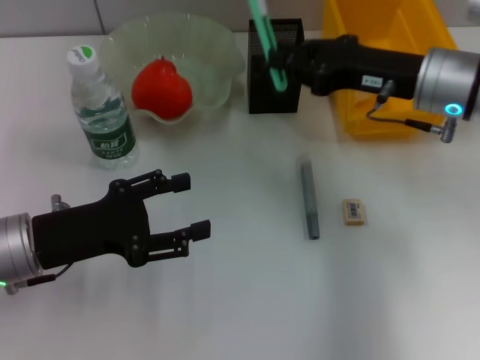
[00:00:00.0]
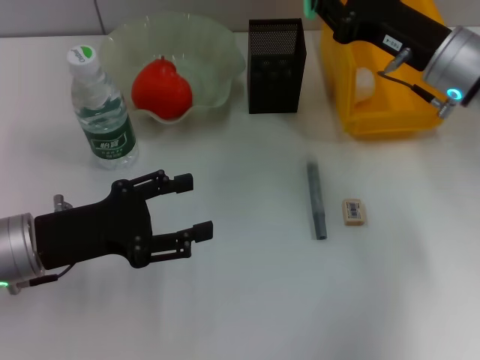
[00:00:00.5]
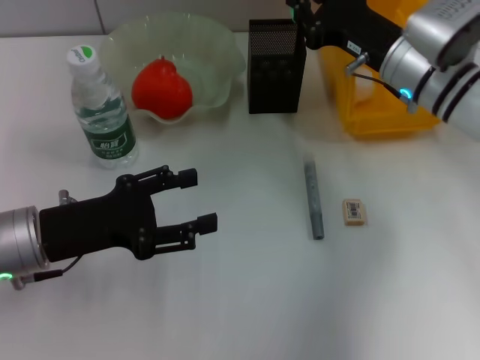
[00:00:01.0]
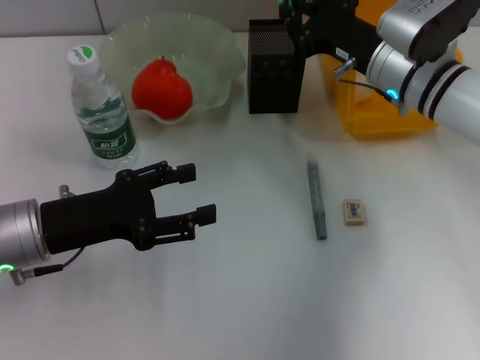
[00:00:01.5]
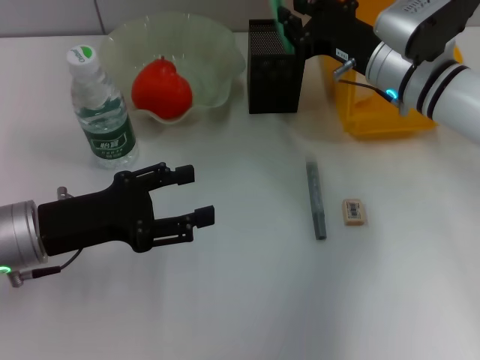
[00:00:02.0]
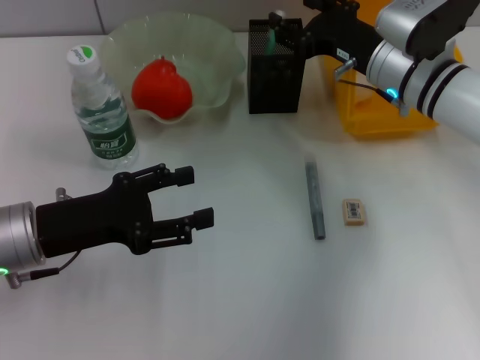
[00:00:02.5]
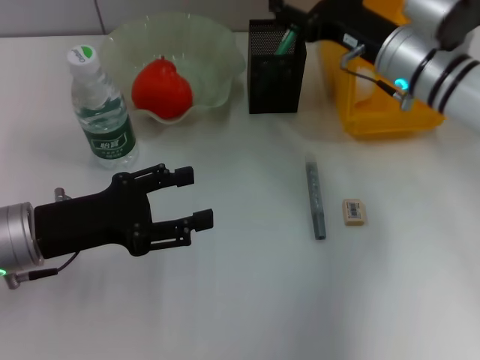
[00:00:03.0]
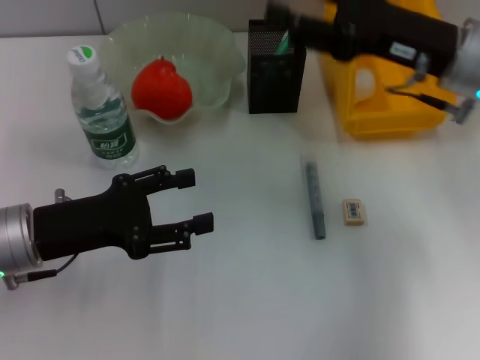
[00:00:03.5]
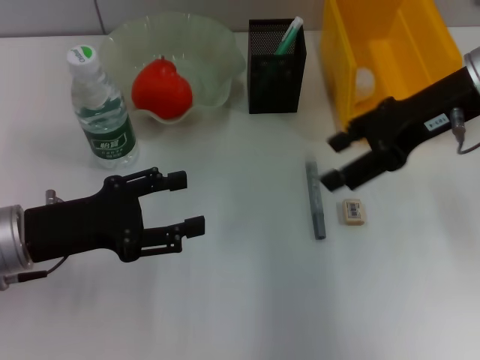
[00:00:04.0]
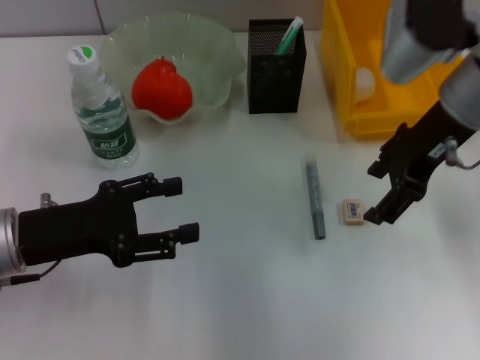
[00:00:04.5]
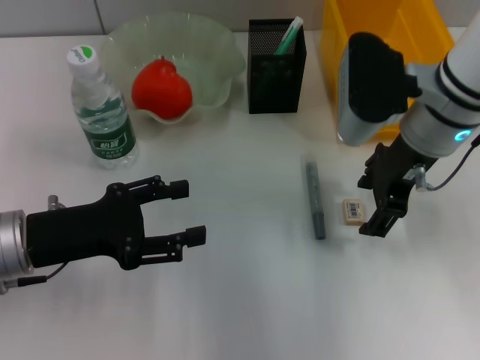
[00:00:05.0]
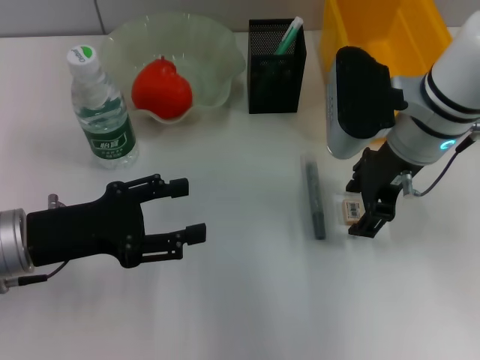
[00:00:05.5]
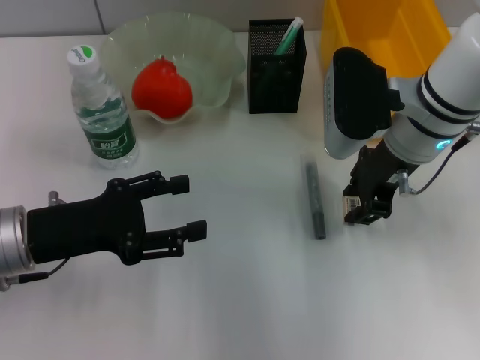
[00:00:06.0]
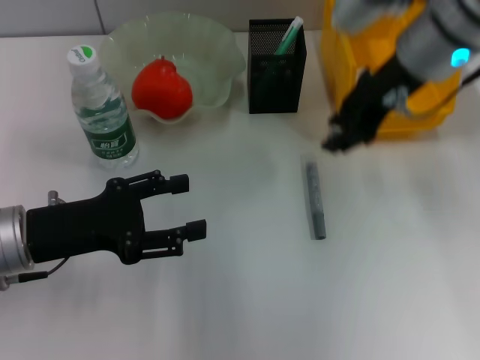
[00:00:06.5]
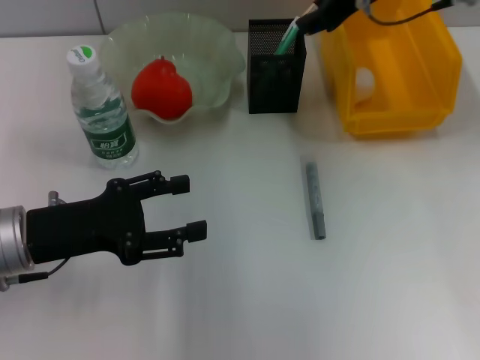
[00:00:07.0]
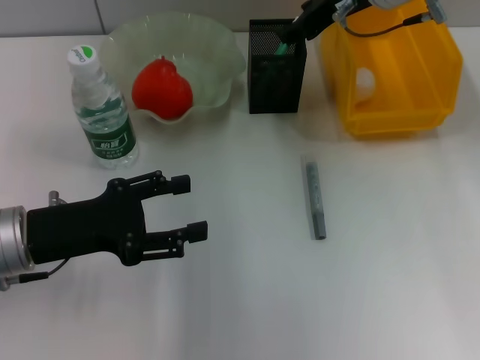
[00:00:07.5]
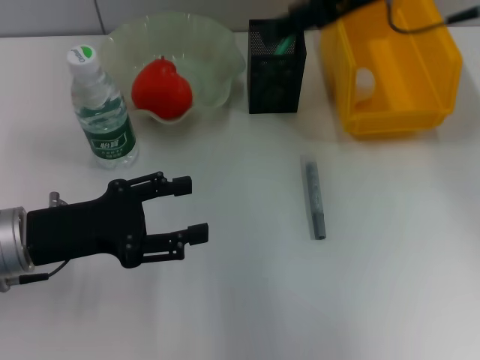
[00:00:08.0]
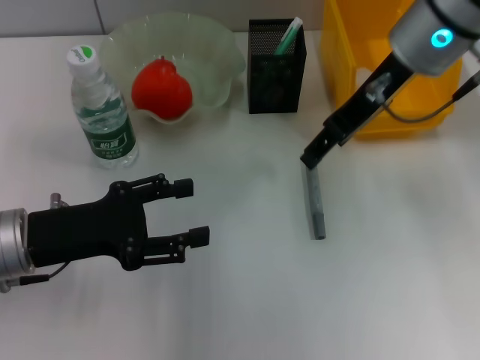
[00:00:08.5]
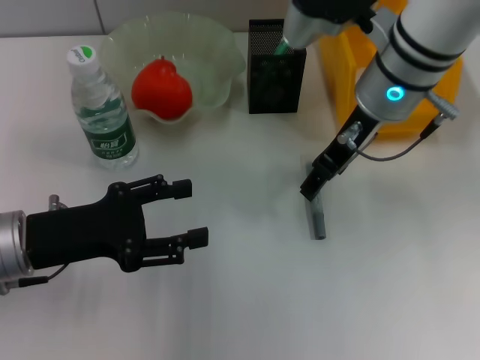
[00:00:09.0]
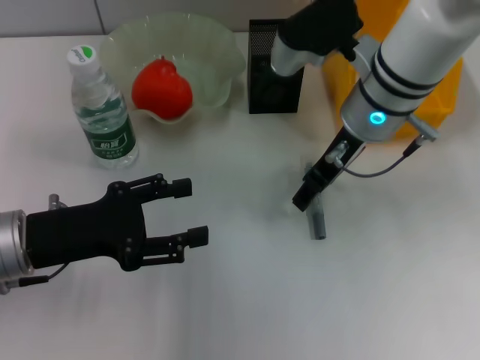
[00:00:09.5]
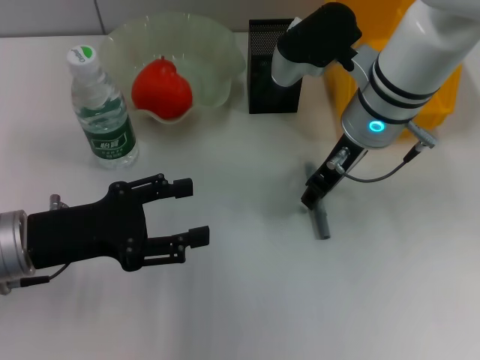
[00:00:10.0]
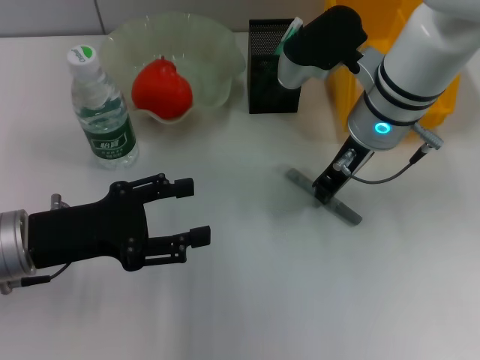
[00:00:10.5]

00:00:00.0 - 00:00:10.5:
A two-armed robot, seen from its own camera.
Step, 00:00:00.0 - 00:00:02.5: Place the blue utility knife into the pen holder with the right hand.
Step, 00:00:03.0 - 00:00:06.0: Grab the eraser with the right hand.
Step, 00:00:06.5 - 00:00:07.5: Put the eraser into the pen holder with the right hand.
00:00:00.0 - 00:00:02.0: The right gripper ends up about 5 cm from where it was.
00:00:02.0 - 00:00:04.0: The right gripper goes about 10 cm upward, and opens its fingers.
00:00:04.0 - 00:00:06.5: The right gripper moves to the left, approximately 5 cm, reaches about 5 cm downward, then returns, and closes.
00:00:06.5 - 00:00:08.5: The right gripper opens up.
00:00:08.5 - 00:00:10.5: The right gripper heads downward, covering roughly 10 cm, and closes up.

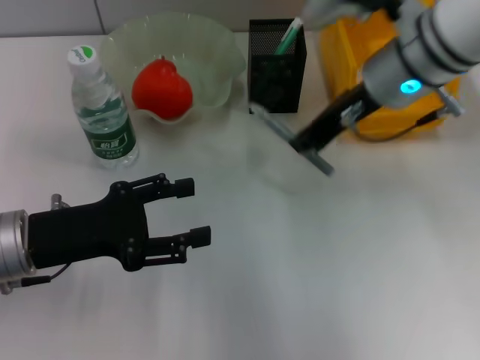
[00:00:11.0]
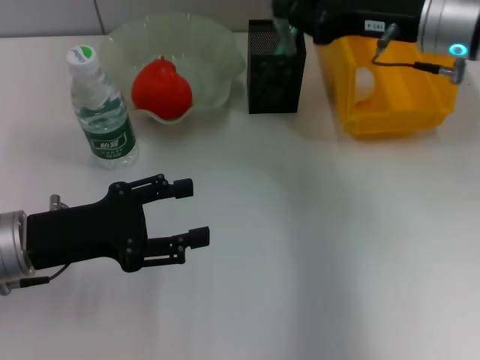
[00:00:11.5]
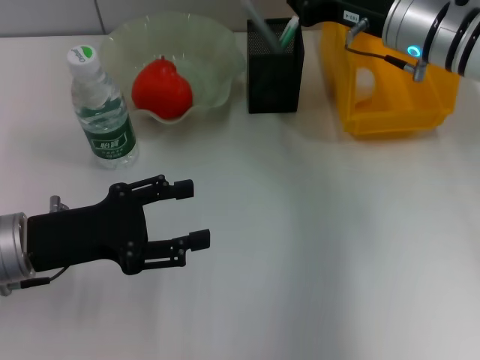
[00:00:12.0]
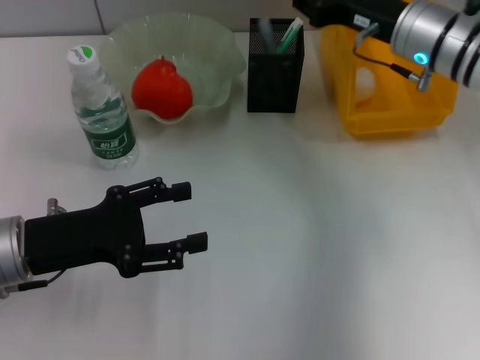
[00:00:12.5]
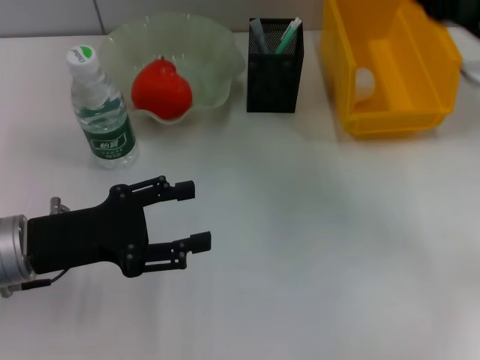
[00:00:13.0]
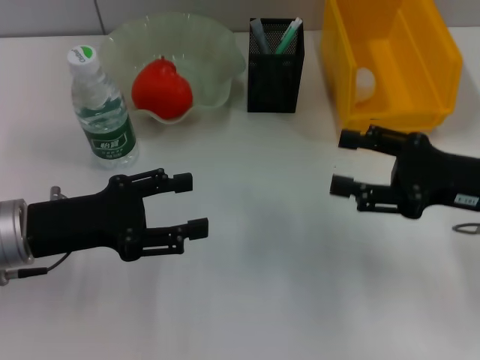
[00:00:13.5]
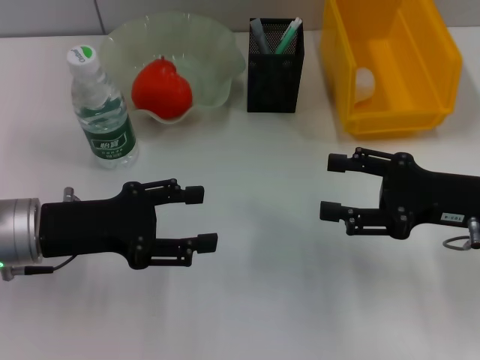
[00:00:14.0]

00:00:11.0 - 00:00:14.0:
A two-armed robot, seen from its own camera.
Step, 00:00:11.0 - 00:00:12.0: Place the gray glue into the pen holder with the right hand.
00:00:11.0 - 00:00:12.5: The right gripper travels downward and to the right by some 5 cm.
00:00:12.5 - 00:00:14.0: The right gripper goes some 15 cm backward and to the right, and opens up.

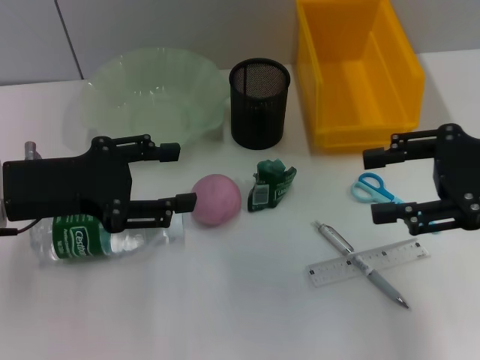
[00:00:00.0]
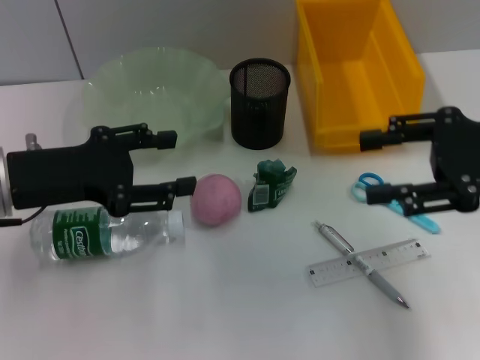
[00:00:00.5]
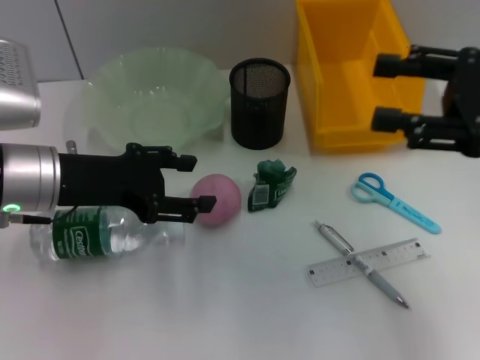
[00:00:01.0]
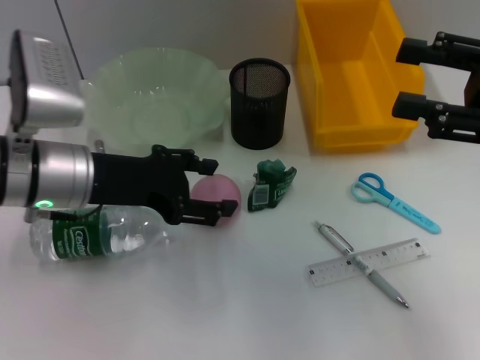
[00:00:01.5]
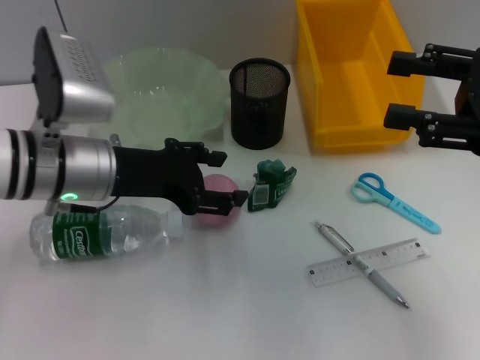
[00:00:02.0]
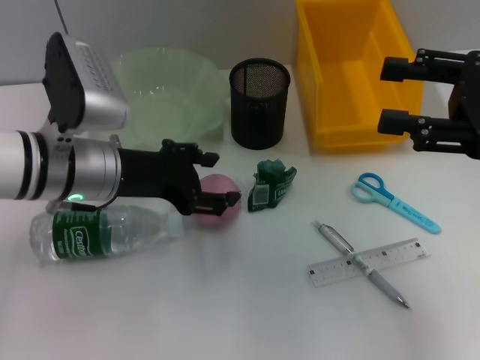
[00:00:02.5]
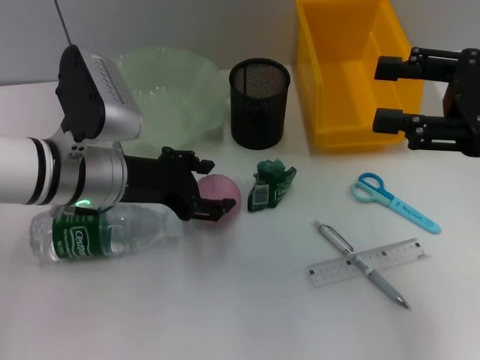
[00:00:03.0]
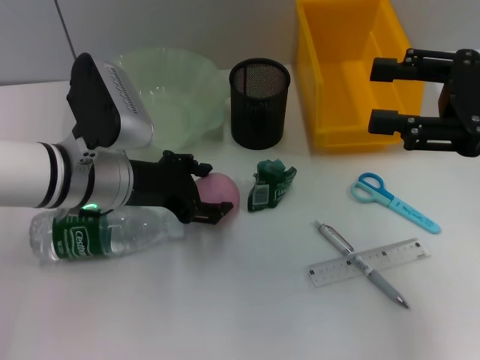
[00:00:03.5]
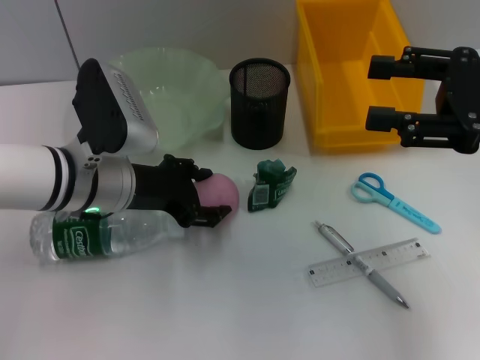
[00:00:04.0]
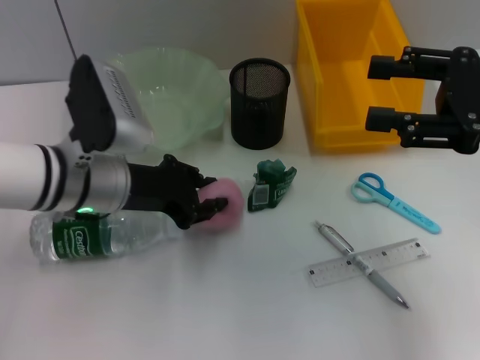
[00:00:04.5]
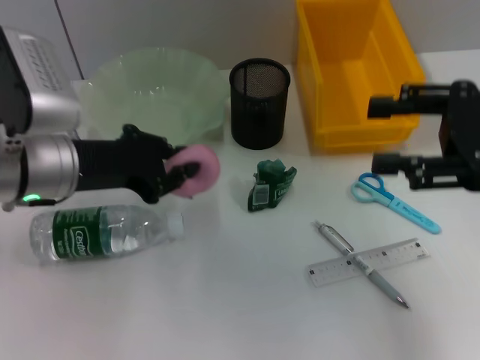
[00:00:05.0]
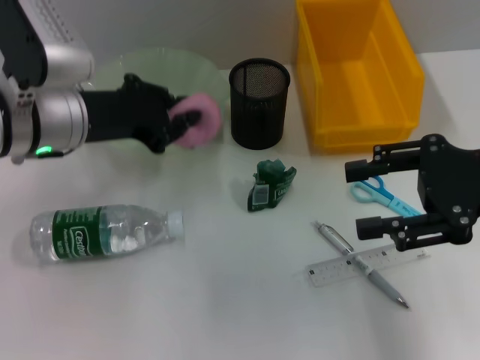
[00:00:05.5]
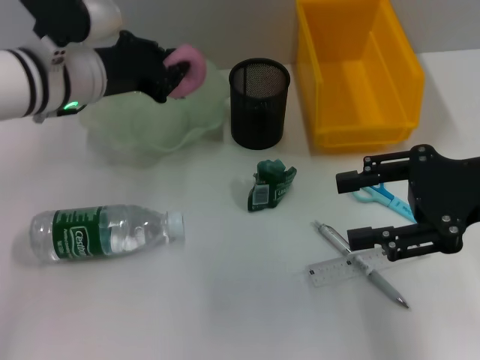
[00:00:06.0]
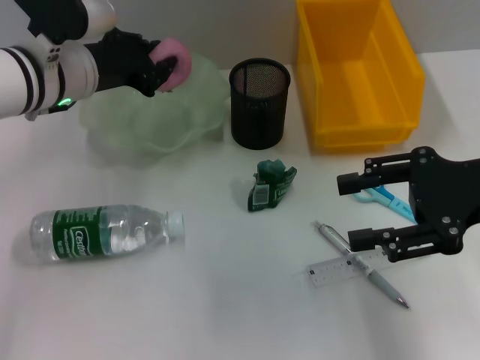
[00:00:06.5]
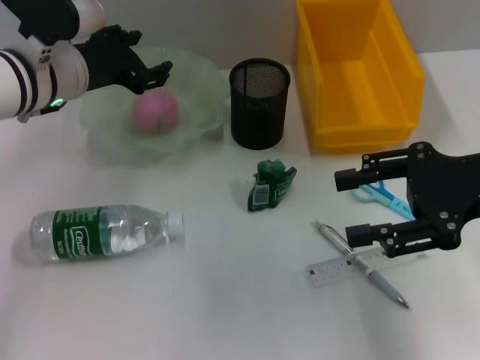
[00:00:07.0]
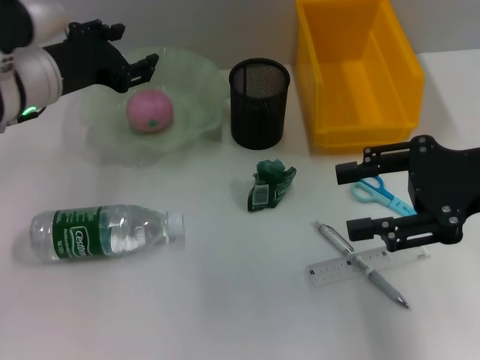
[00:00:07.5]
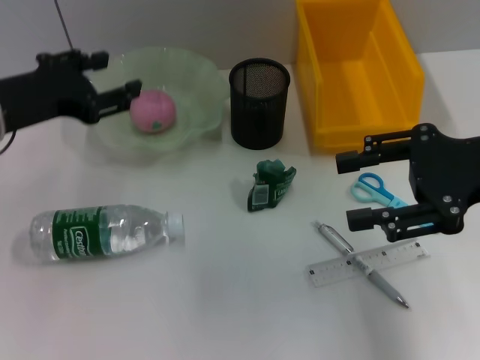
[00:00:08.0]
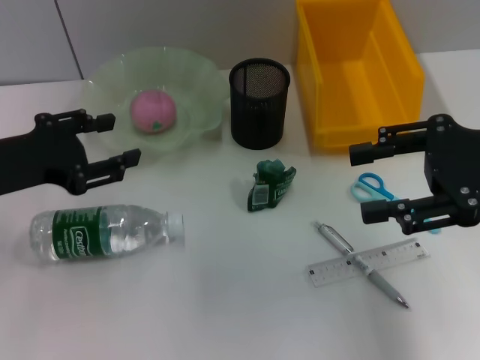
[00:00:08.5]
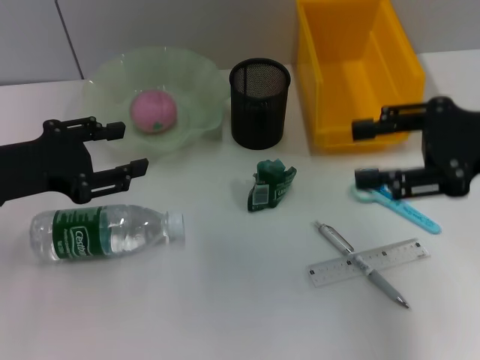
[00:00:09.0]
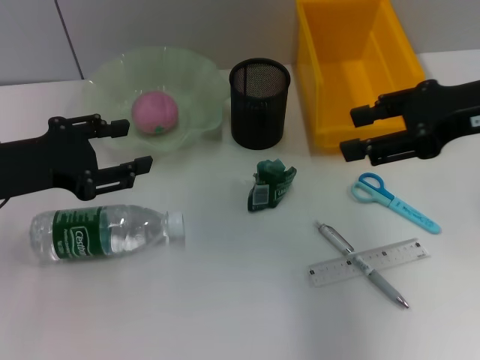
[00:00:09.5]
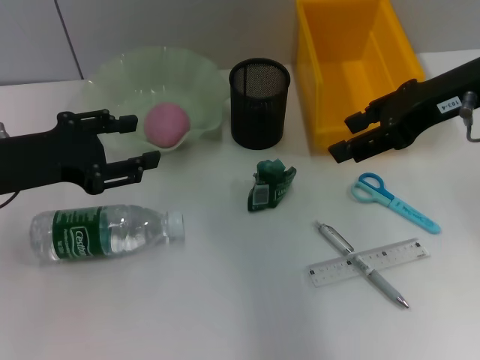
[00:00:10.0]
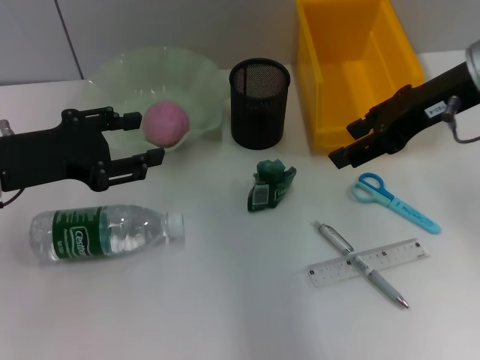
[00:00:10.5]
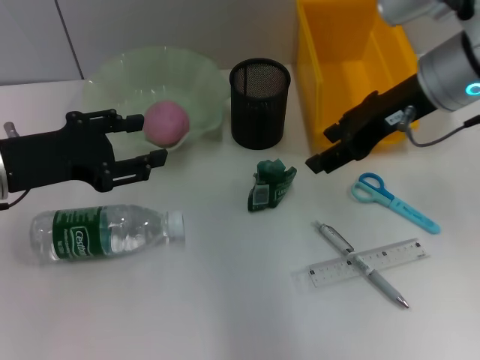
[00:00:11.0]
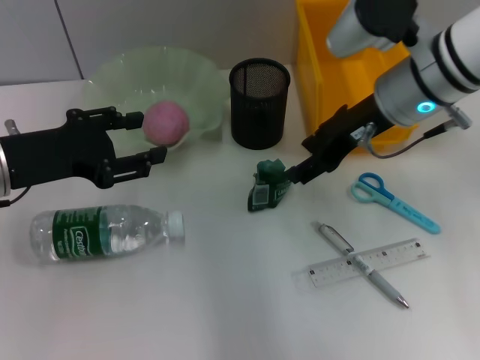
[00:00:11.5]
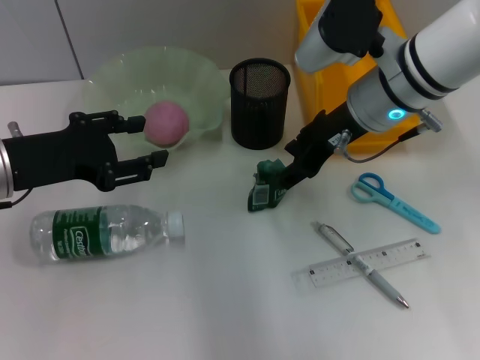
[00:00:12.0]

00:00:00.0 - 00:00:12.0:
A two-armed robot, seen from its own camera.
Step, 00:00:00.0 - 00:00:04.0: Grab the peach with the left hand.
Step, 00:00:04.5 - 00:00:06.5: Place the peach into the fruit bowl with the left hand.
00:00:00.0 - 00:00:02.0: The left gripper heads to the right, covering approximately 10 cm.
00:00:02.0 - 00:00:04.0: The grippers move only a little.
00:00:04.0 - 00:00:06.0: The left gripper shifts some 10 cm upward and forward, and closes its fingers.
00:00:06.0 - 00:00:08.0: The left gripper heads to the left and backward, covering roughly 10 cm, and opens its fingers.
00:00:08.0 - 00:00:10.0: The right gripper travels forward by approximately 5 cm.
00:00:10.0 - 00:00:12.0: The right gripper travels to the left and downward by approximately 10 cm.
